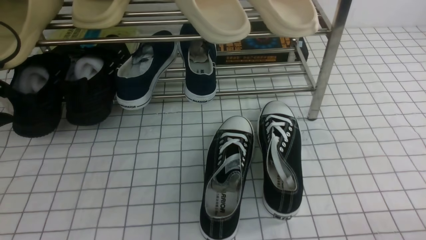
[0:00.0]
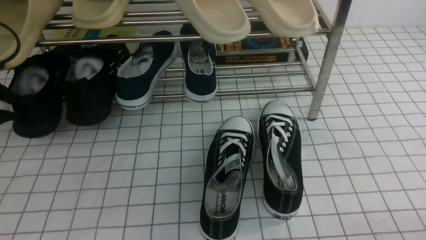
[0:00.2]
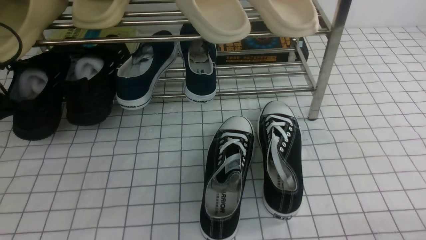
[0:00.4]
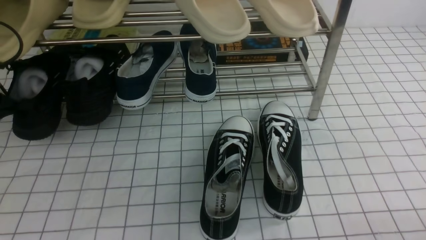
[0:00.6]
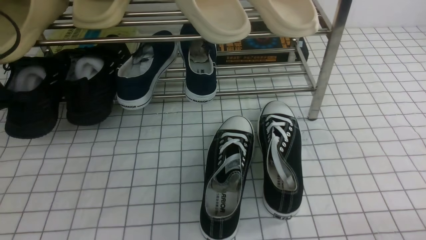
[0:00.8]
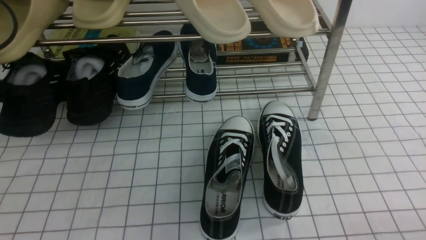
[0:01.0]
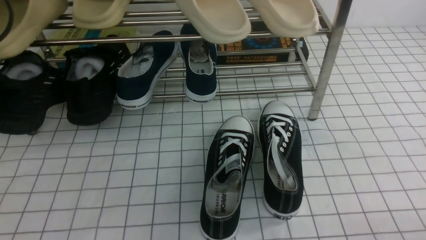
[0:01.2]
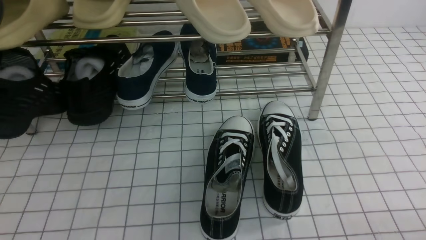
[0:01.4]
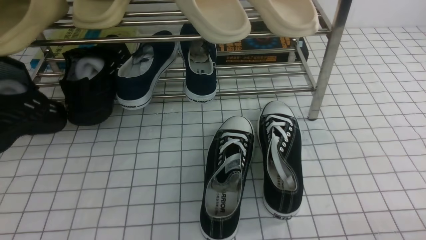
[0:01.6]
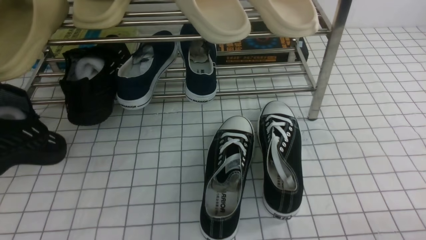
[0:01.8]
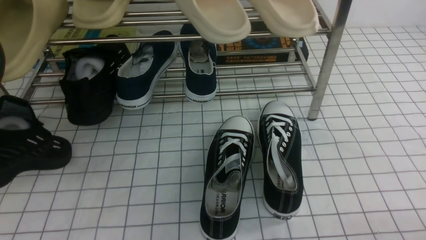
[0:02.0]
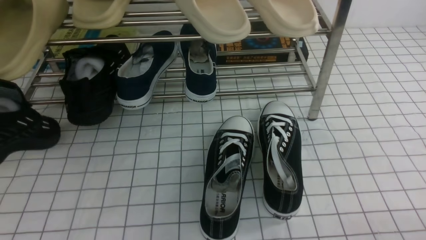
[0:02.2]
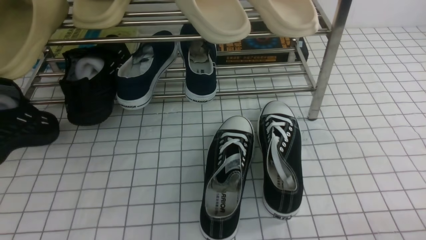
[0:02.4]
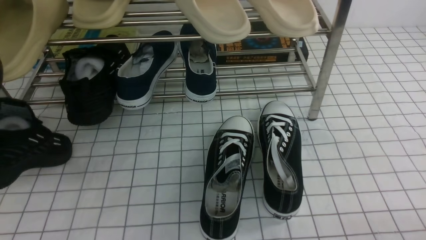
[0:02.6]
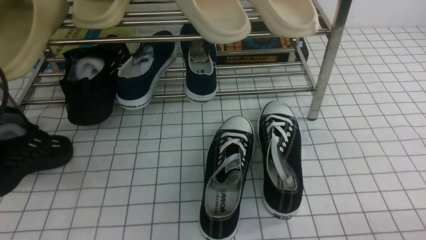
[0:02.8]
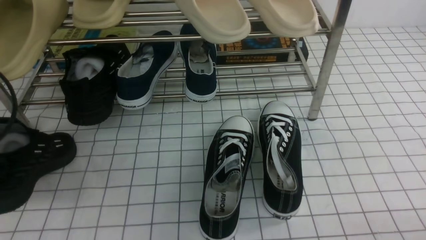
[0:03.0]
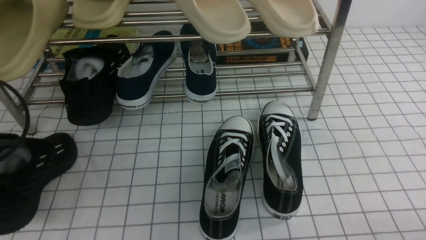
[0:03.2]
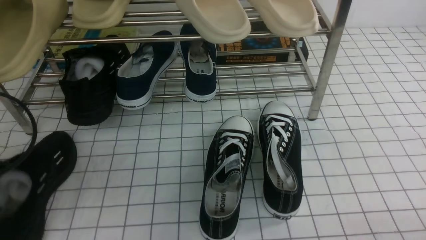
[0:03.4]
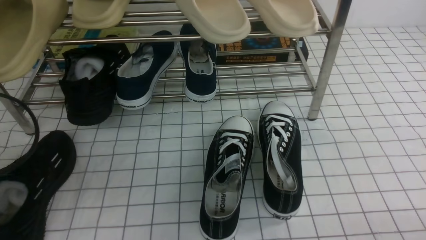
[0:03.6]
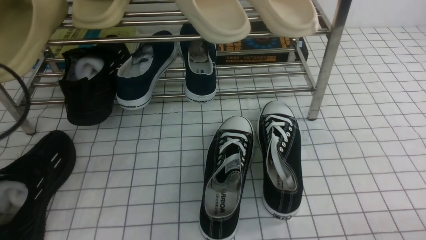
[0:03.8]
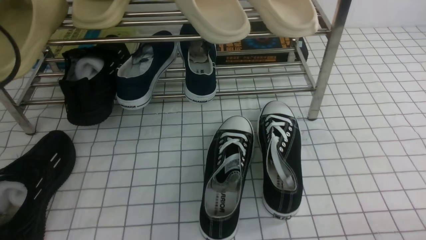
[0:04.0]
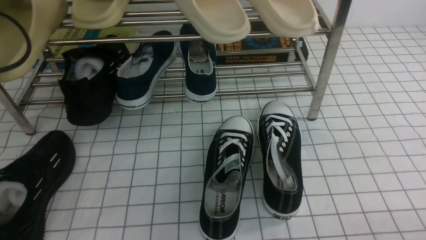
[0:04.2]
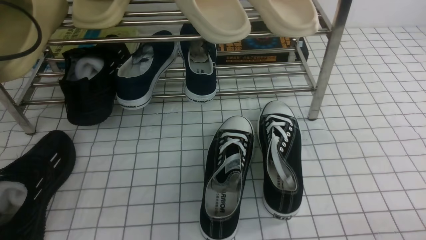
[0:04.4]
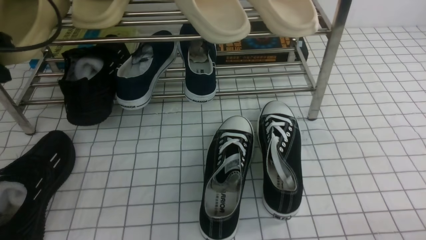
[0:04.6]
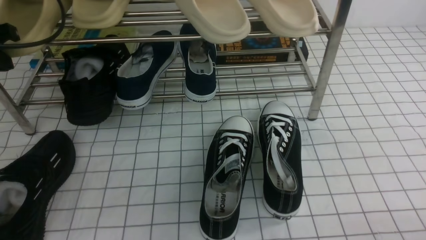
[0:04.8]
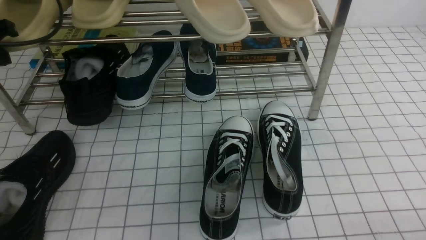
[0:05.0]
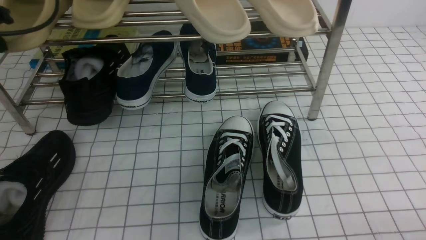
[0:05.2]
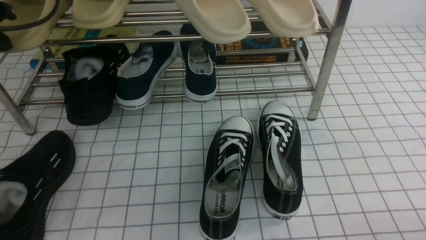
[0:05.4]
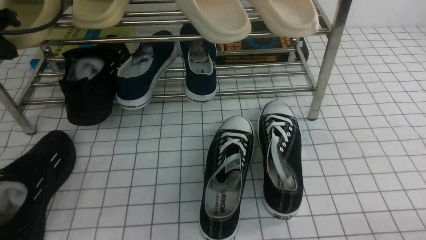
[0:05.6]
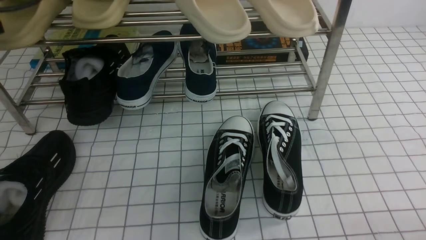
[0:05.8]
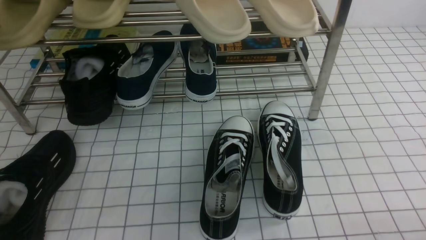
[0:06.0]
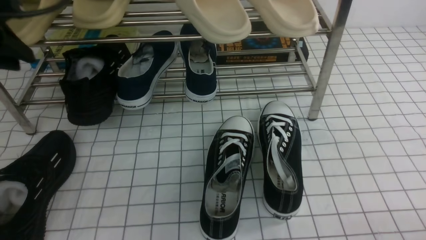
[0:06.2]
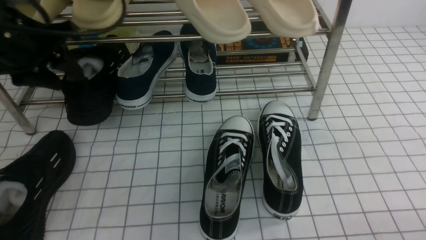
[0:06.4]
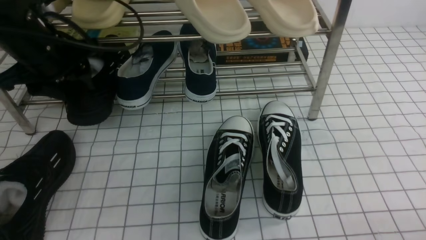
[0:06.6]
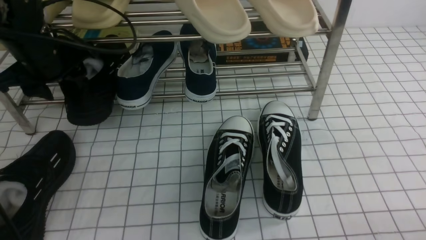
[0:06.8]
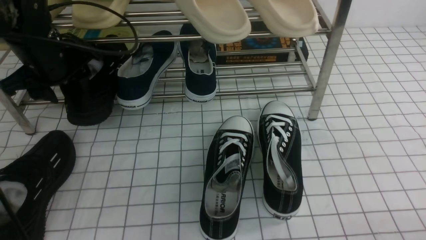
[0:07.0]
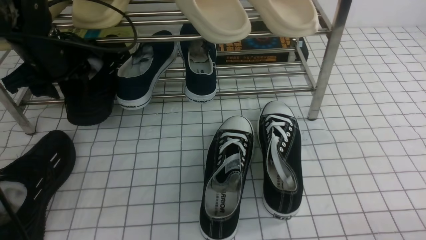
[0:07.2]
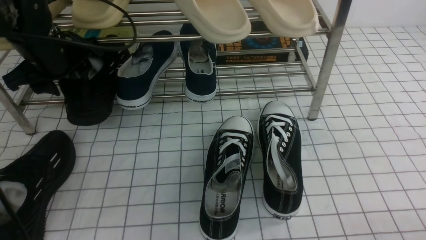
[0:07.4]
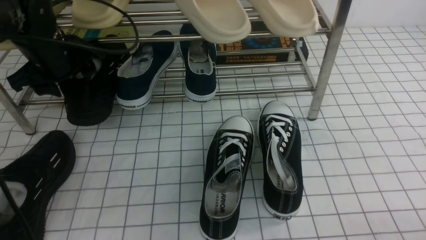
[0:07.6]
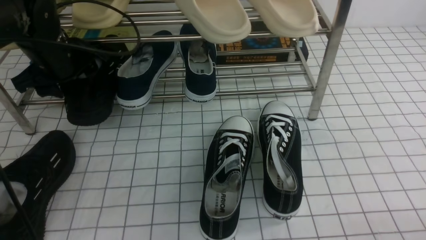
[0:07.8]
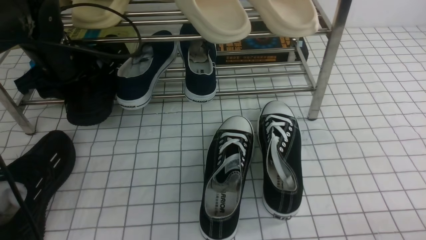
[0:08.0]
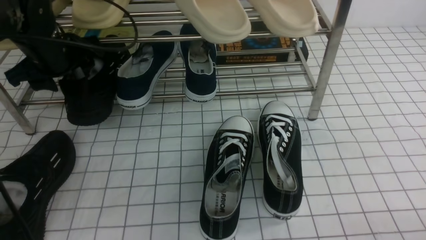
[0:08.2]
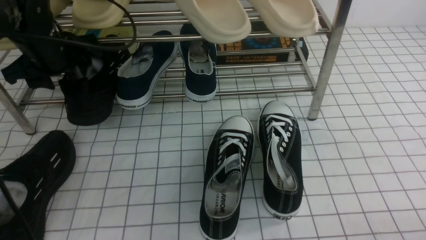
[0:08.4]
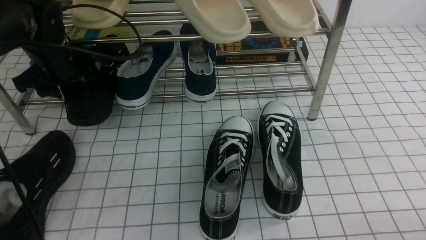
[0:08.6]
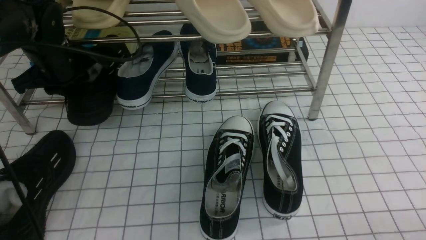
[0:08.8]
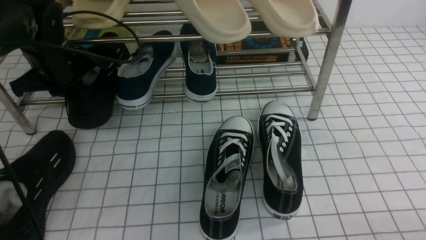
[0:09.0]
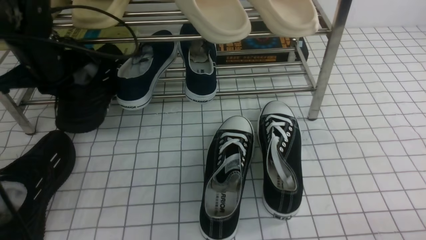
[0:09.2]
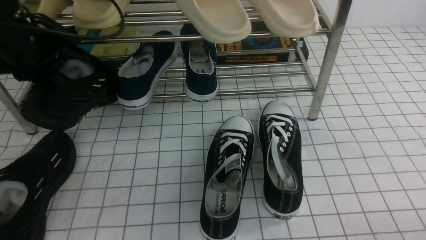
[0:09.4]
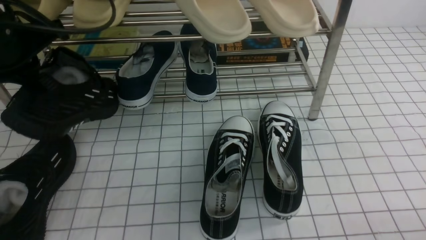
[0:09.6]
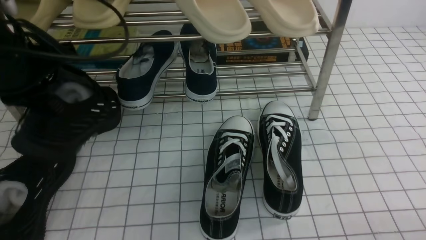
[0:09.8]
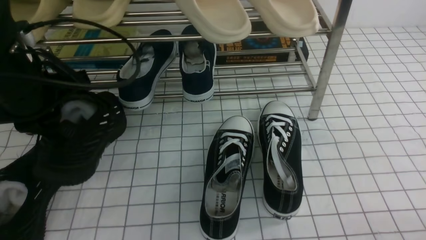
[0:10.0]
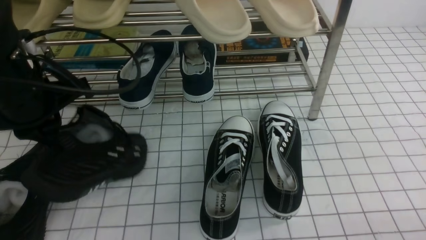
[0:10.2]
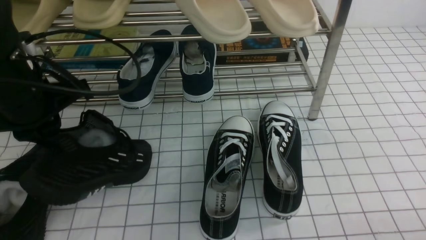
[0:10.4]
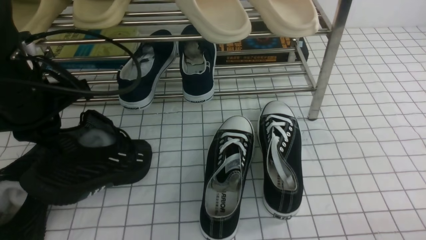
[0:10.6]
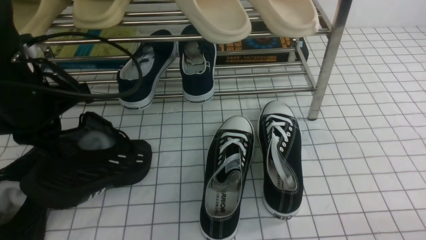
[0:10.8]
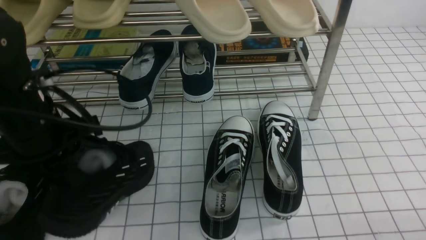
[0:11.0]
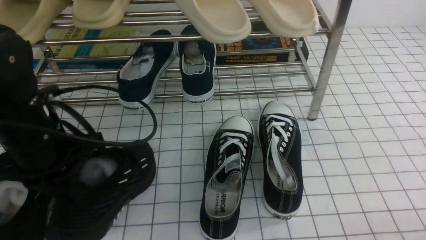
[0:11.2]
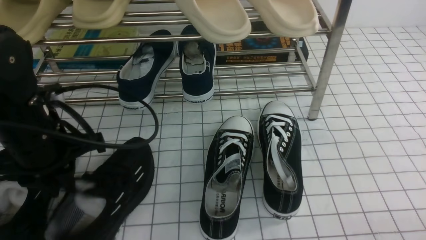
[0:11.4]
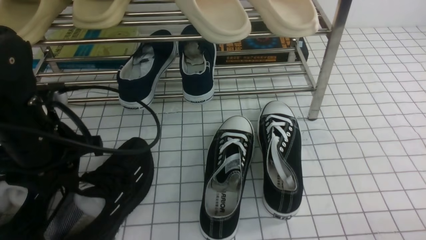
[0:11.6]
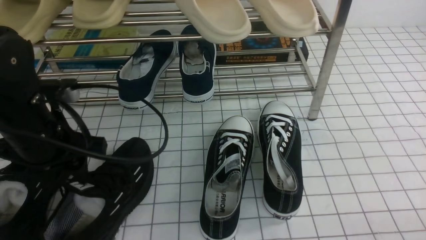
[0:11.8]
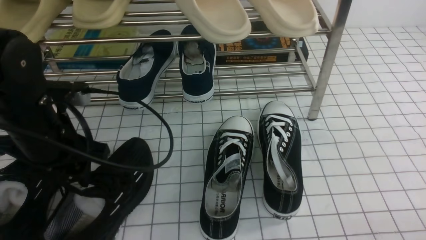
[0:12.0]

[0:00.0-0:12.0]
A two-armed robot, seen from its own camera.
Step, 0:00.6 to 0:04.0: Use your left arm to remove the clamped shoe from the shoe rack and put it down.
Step, 0:04.2 to 0:08.8: use the left arm to clamp a shoe on the left side of the shoe rack.
0:00.0 to 0:01.6: The left gripper goes some 15 cm backward and upward, and closes.
0:01.6 to 0:03.0: The left gripper travels downward by about 10 cm.
0:03.0 to 0:04.4: The left gripper heads forward and upward, covering roughly 10 cm, and opens, then closes once more.
0:04.4 to 0:06.0: The left gripper goes about 5 cm upward.
0:06.0 to 0:07.6: The left gripper travels downward, to the right and forward by about 15 cm, and opens its fingers.
0:07.6 to 0:09.0: The left gripper closes.
0:09.0 to 0:10.4: The left gripper shifts approximately 10 cm backward.
0:10.4 to 0:12.0: The left gripper travels downward by roughly 5 cm, and opens up.

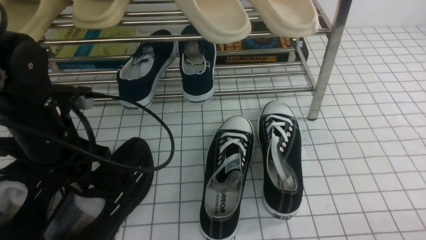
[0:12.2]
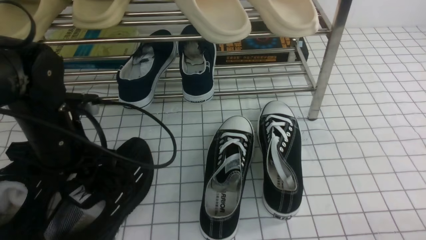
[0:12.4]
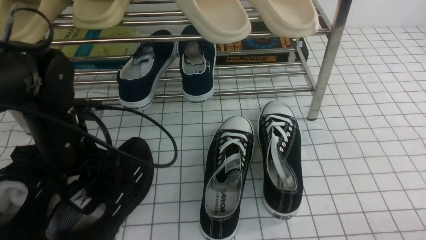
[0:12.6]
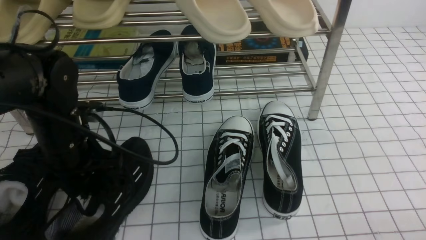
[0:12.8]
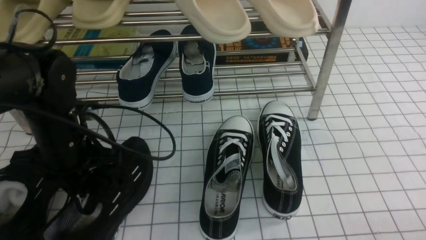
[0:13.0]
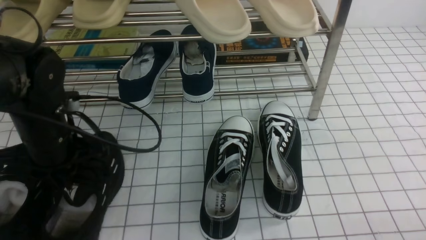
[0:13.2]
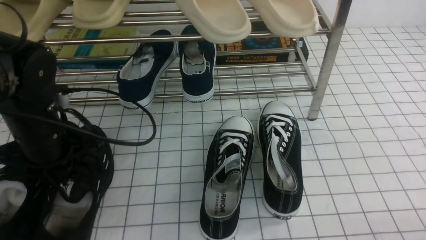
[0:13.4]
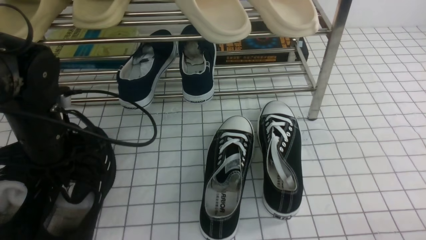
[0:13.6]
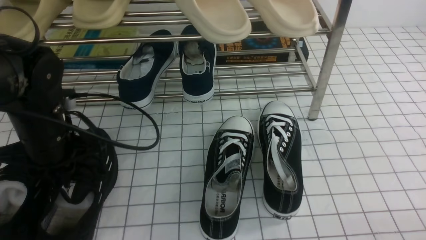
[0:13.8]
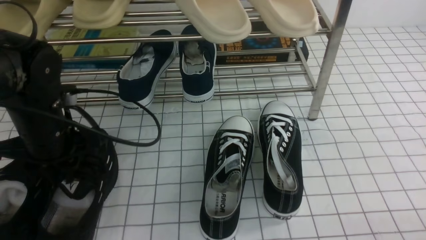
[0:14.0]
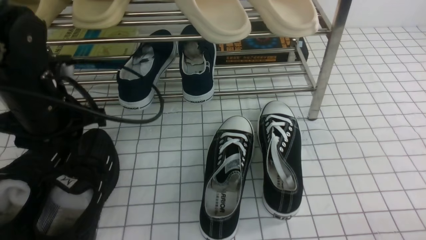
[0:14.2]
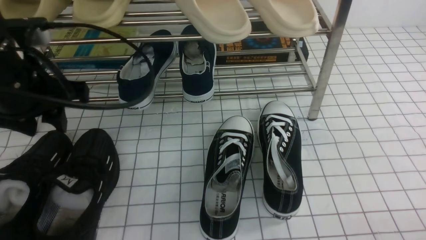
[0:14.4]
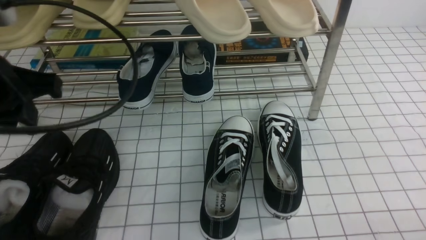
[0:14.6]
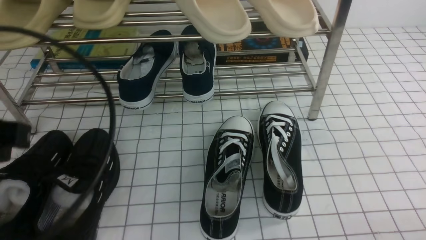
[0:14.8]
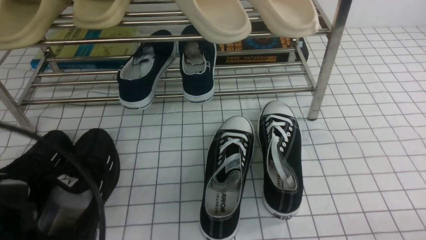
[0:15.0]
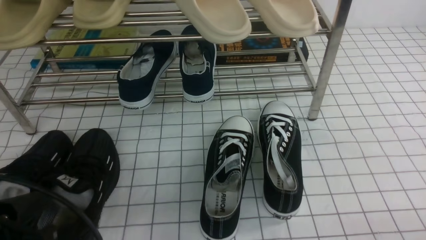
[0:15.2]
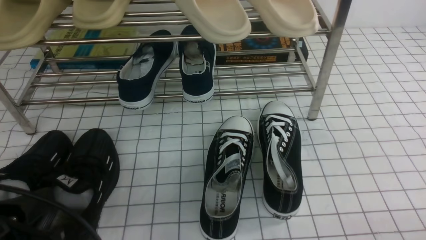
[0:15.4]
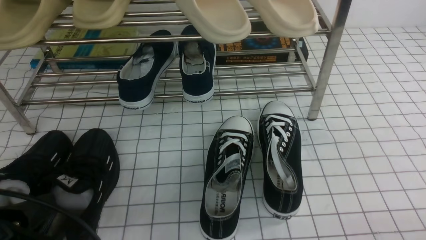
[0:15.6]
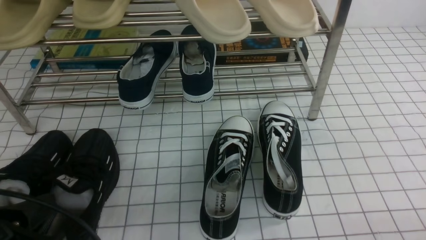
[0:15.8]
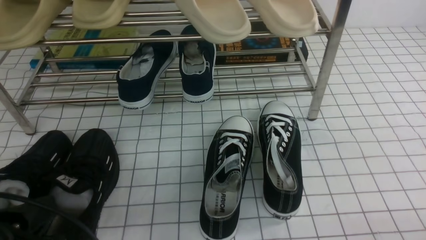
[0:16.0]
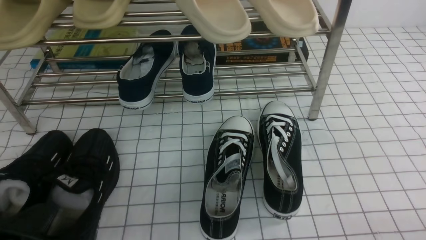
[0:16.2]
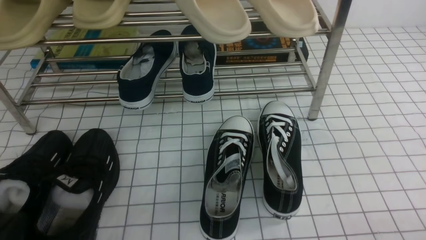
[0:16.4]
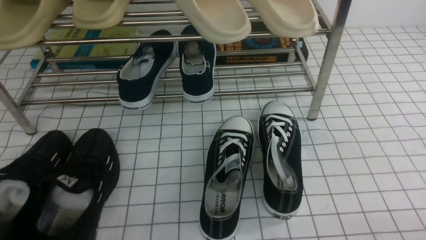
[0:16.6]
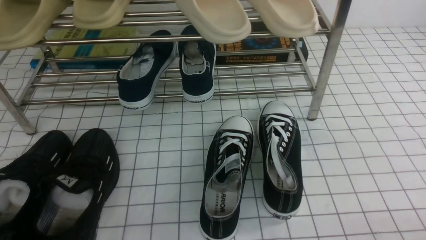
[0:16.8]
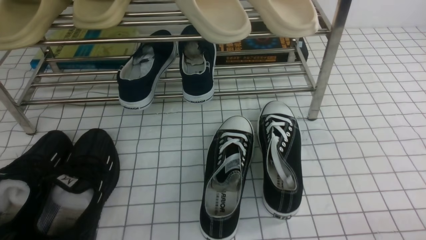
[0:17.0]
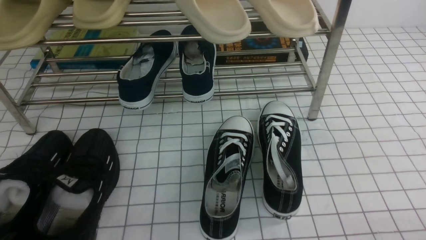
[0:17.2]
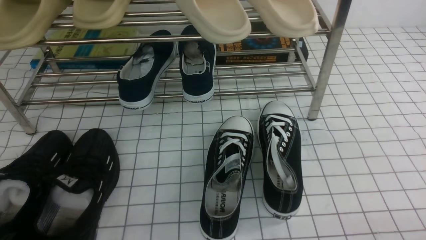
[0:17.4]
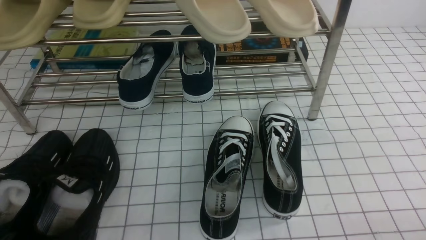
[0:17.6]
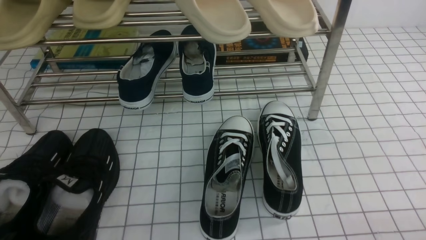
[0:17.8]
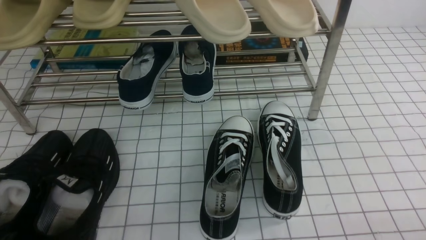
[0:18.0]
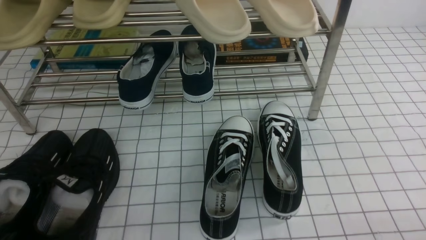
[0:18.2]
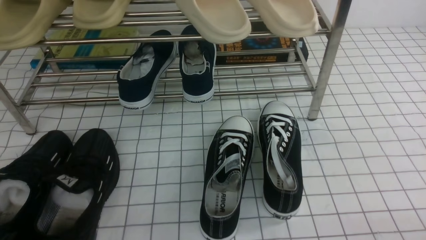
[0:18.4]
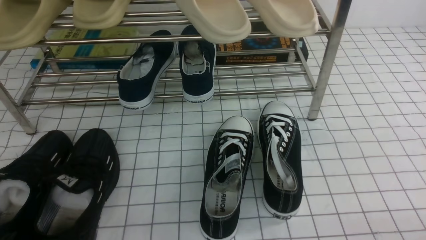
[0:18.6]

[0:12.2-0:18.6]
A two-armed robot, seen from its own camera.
Step, 0:12.2 to 0:14.4: Use your left arm to remove the clamped shoe from the shoe rack and put it down.
0:12.2 to 0:13.8: The left gripper closes.
0:13.8 to 0:15.4: The left gripper goes approximately 20 cm backward, and opens and closes again.
0:15.4 to 0:17.0: The left gripper heads downward, covering roughly 10 cm.
0:17.0 to 0:18.6: Neither gripper changes place.
